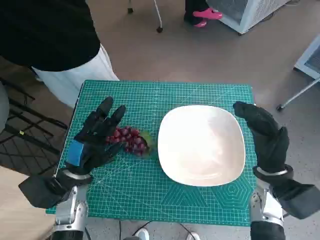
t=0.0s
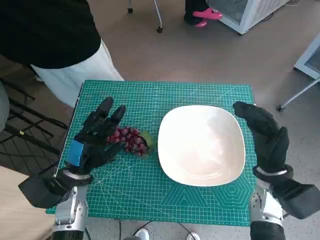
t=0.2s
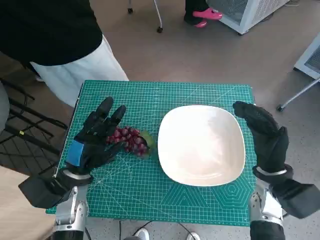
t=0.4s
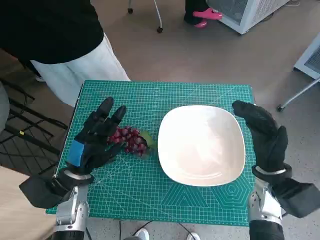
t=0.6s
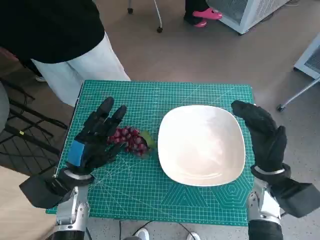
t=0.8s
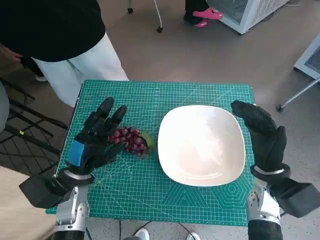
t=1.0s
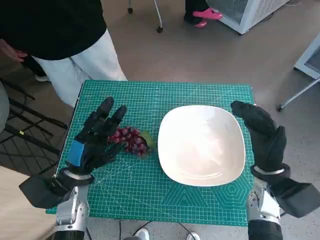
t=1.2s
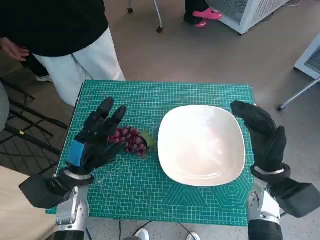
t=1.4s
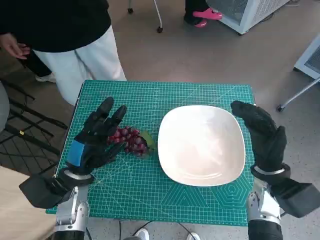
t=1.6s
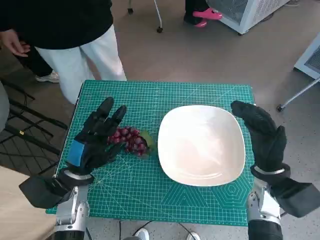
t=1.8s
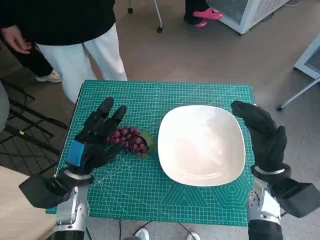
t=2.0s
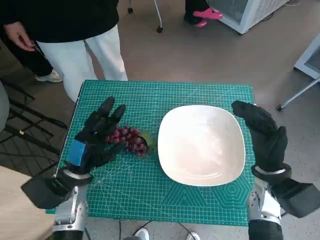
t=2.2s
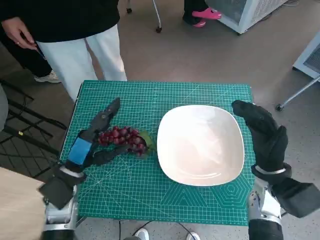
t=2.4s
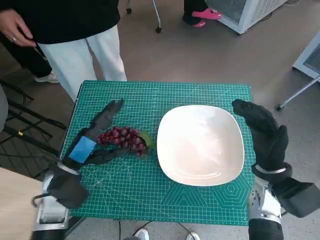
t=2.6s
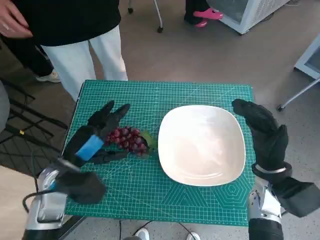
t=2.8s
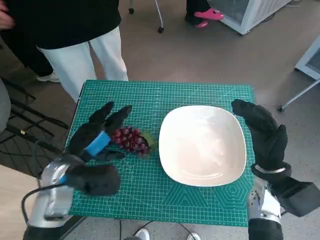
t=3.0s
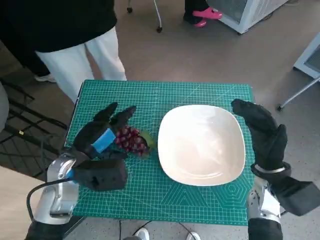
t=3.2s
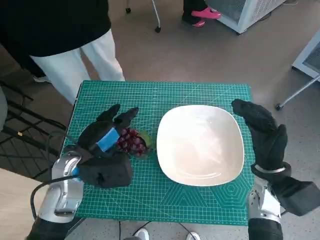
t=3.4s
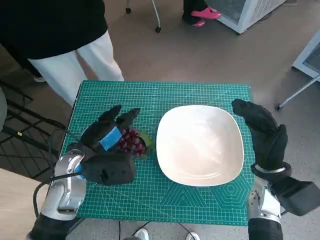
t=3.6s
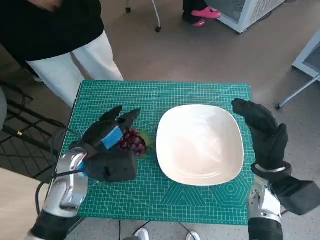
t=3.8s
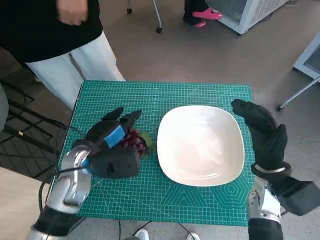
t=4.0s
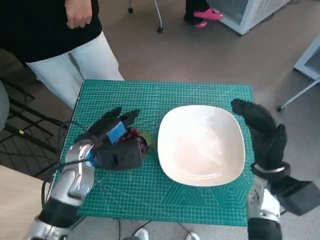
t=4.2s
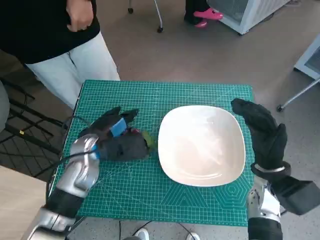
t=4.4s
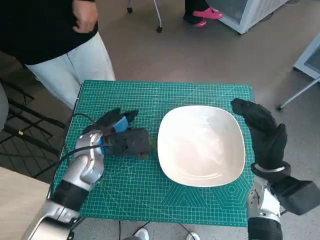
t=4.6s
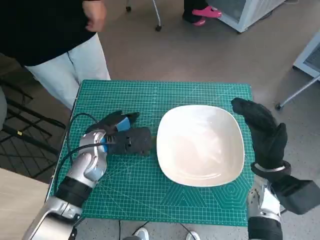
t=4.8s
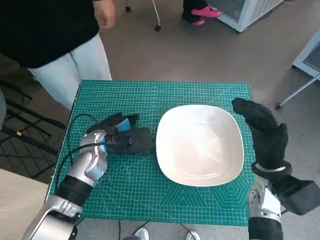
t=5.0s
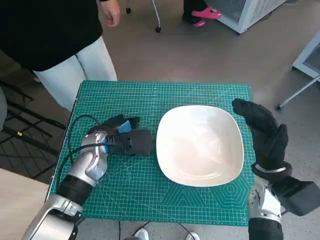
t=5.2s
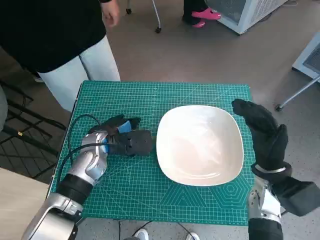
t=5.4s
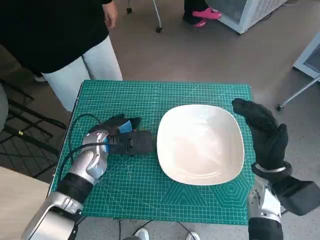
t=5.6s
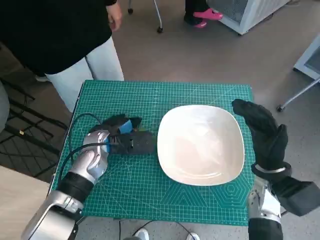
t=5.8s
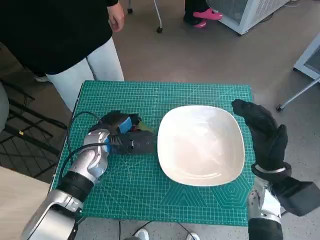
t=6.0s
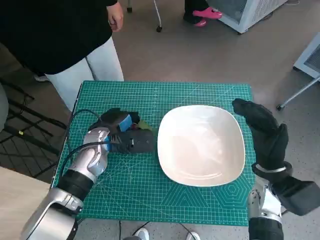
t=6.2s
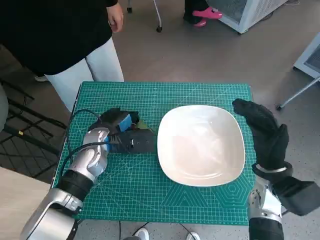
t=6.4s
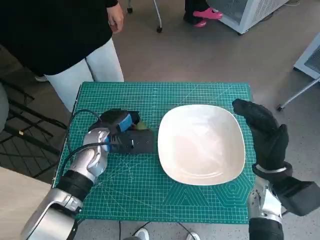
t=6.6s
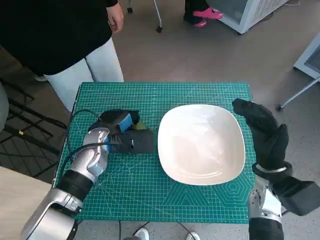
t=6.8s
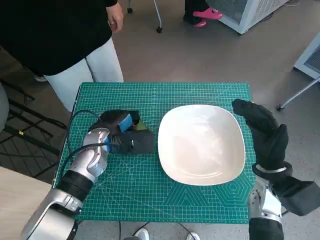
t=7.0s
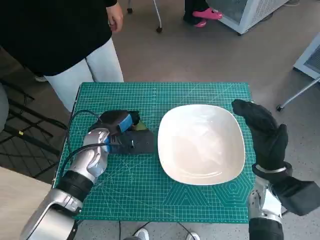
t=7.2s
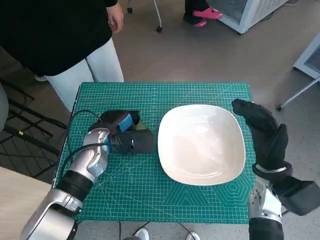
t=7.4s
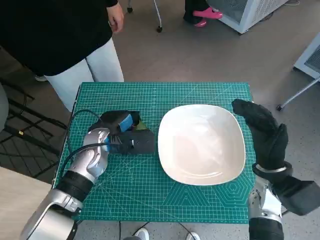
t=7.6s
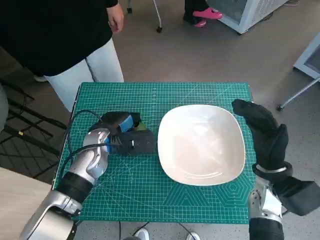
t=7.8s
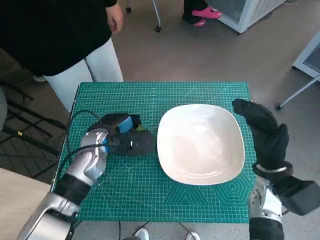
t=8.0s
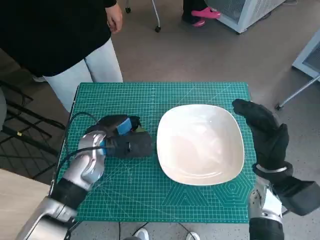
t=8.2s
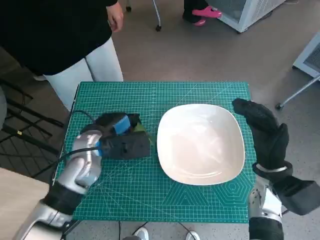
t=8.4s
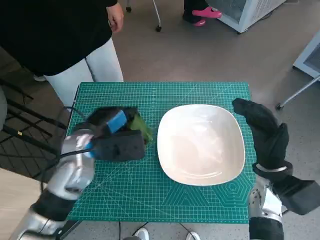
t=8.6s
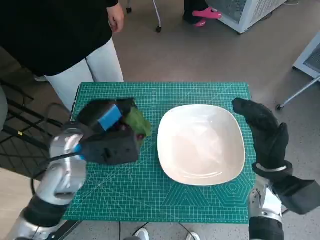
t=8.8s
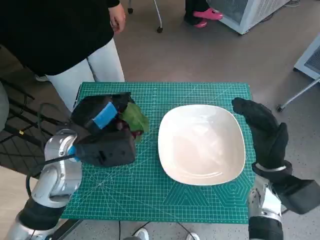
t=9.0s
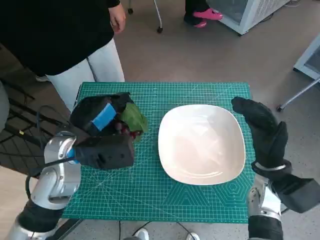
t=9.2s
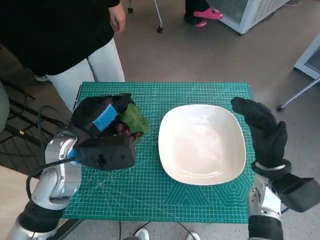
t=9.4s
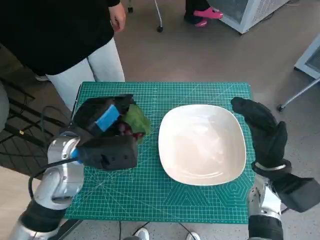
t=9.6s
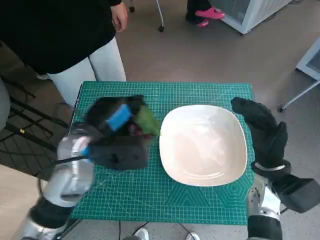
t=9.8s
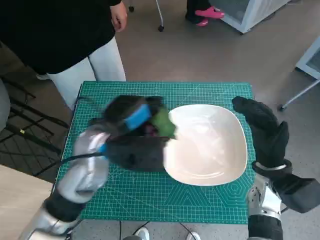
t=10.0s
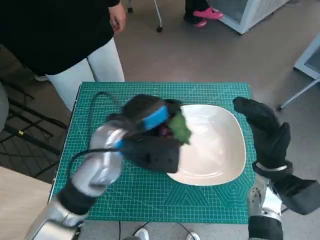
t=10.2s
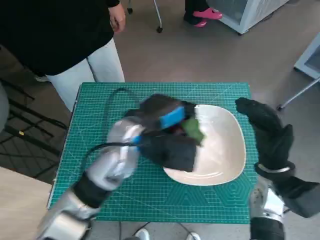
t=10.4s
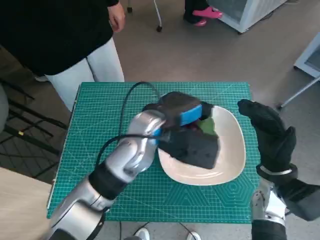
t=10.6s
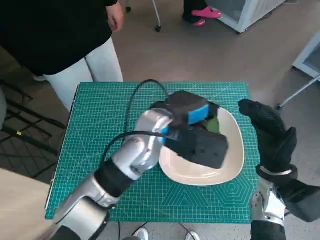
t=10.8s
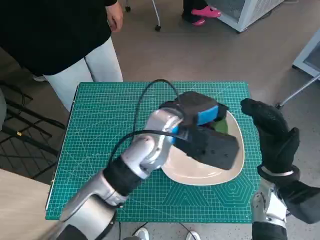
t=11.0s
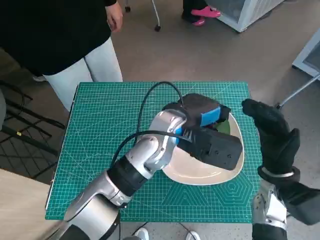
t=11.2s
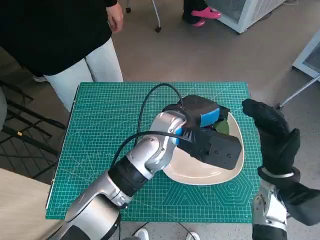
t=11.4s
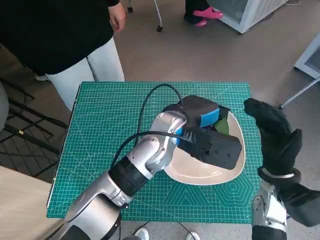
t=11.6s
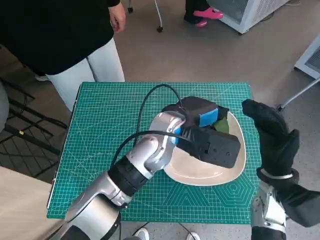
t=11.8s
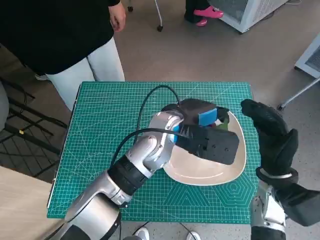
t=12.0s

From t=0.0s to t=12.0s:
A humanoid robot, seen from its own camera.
Task of the whole recording: Pick up the grapes and put them on the plate.
Step, from t=0.0s to t=6.6s: Grasp the grapes with left hand.
From t=1.6s to t=3.0s: The left hand heads upward, covering roughly 5 cm.
From t=3.0s to t=4.4s: The left hand heads forward, covering roughly 5 cm.
From t=4.4s to t=7.6s: The hands make only small movements.
From t=7.6s to t=9.0s: The left hand travels upward and backward by about 10 cm.
From t=9.0s to t=10.4s: The left hand goes some 10 cm to the right.
From t=10.4s to t=12.0s: The left hand heads to the right, covering roughly 5 cm.

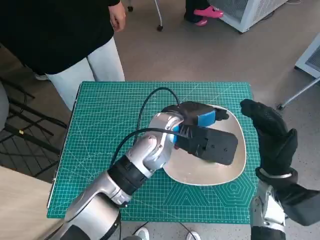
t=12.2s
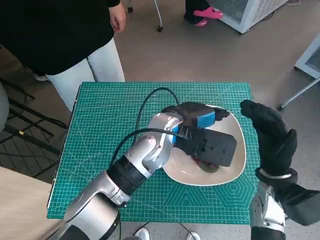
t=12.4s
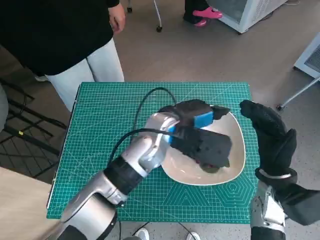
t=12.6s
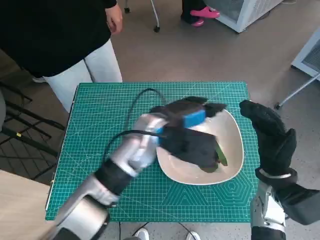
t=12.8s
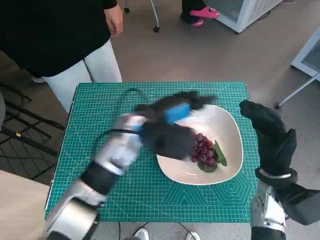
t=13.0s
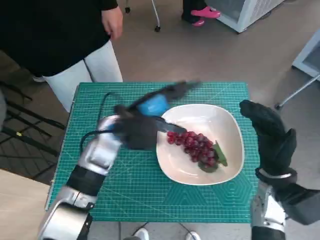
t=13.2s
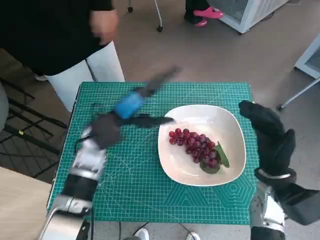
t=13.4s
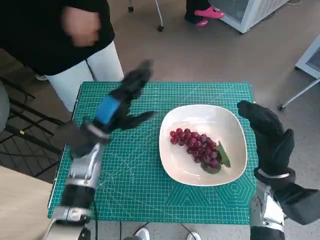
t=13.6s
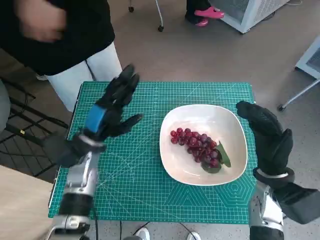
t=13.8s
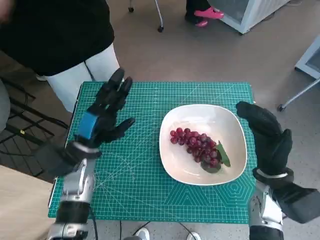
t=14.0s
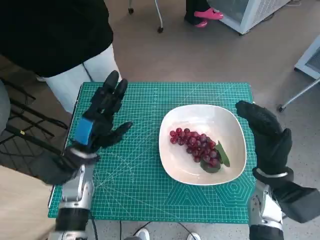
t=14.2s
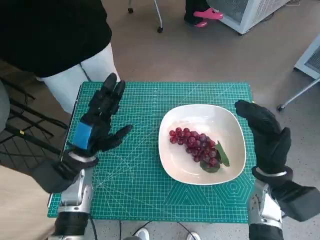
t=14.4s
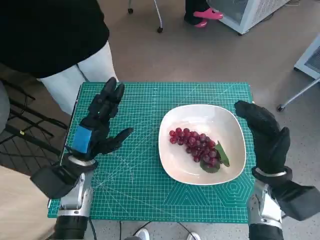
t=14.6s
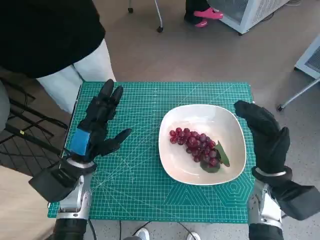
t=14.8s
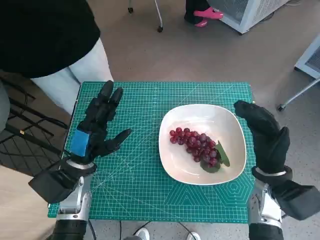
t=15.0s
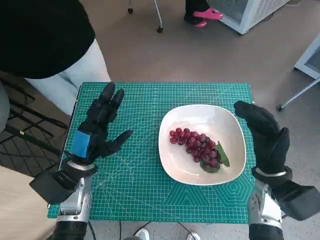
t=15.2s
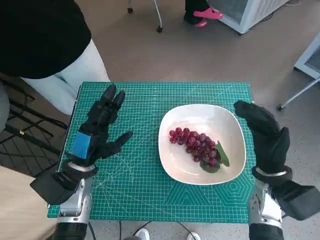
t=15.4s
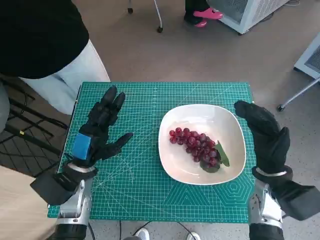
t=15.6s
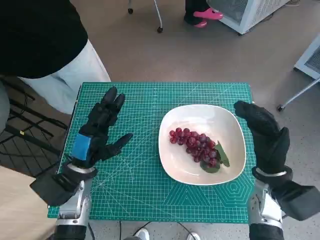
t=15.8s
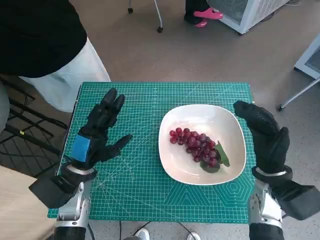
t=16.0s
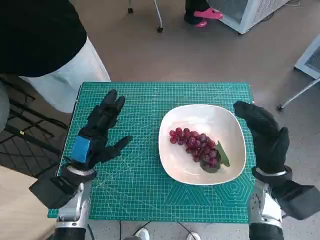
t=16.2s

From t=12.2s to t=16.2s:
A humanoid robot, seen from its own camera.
Task of the whole recording: Pick up the grapes and put them on the plate.
From t=12.2s to t=13.6s: The left hand is displaced to the left by about 15 cm.
From t=13.6s to t=14.8s: The left hand heads backward, covering some 5 cm.
From t=14.8s to t=16.2s: The hands move only a little.

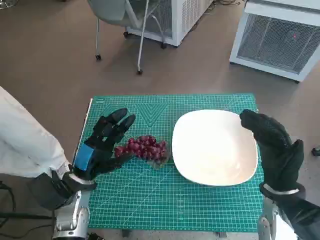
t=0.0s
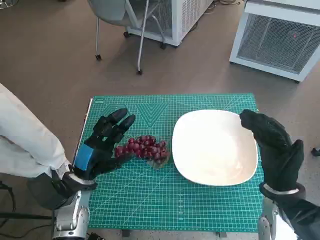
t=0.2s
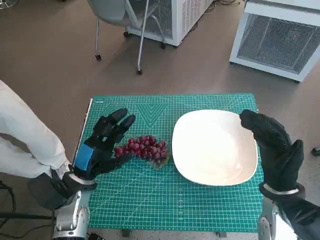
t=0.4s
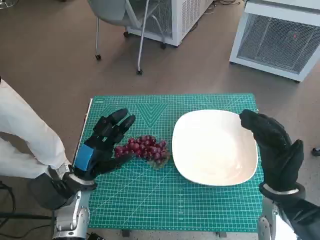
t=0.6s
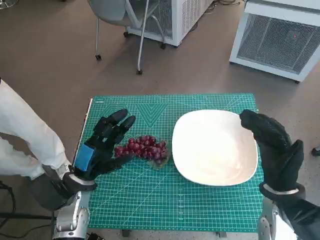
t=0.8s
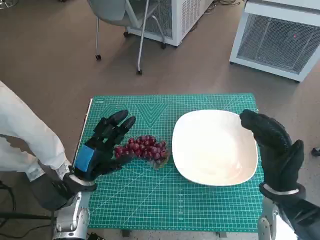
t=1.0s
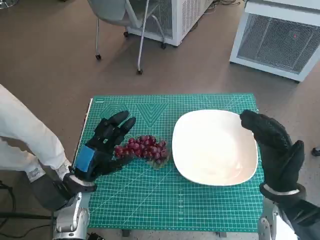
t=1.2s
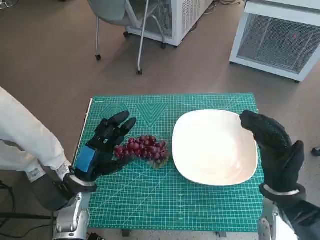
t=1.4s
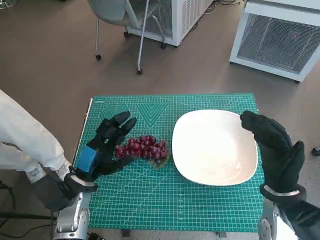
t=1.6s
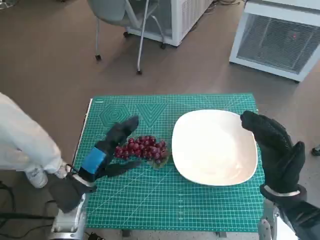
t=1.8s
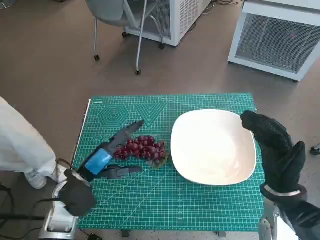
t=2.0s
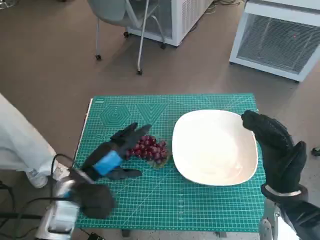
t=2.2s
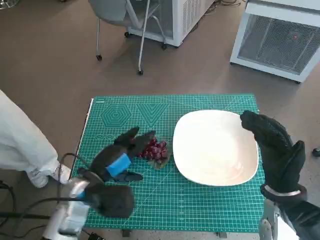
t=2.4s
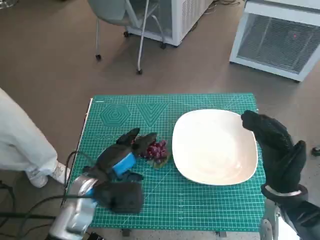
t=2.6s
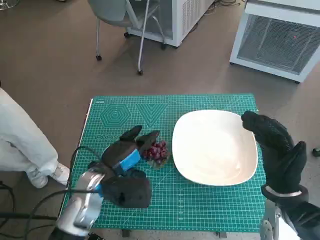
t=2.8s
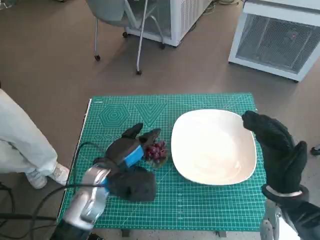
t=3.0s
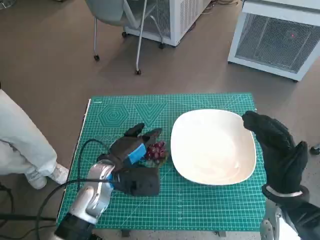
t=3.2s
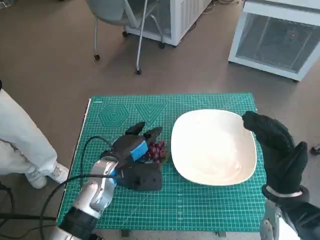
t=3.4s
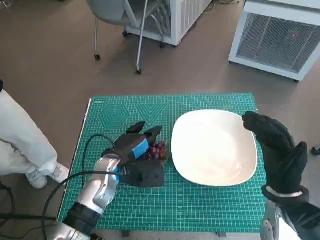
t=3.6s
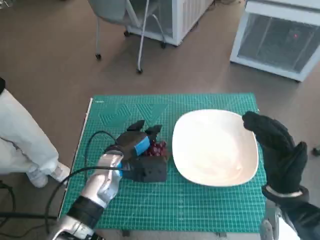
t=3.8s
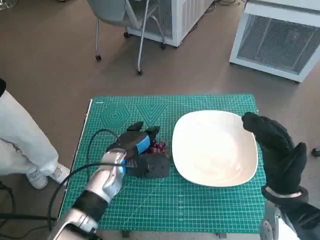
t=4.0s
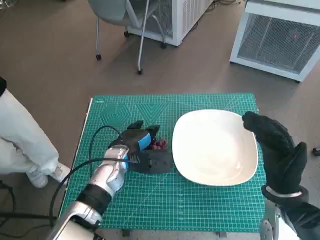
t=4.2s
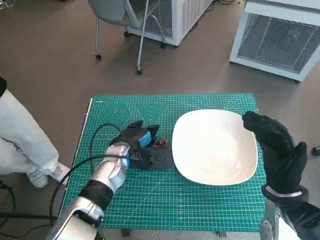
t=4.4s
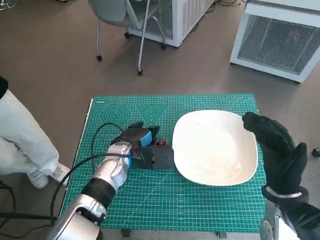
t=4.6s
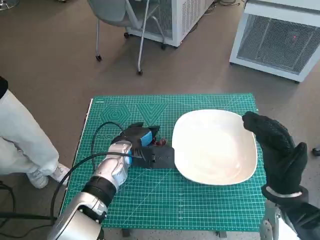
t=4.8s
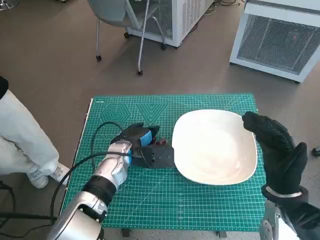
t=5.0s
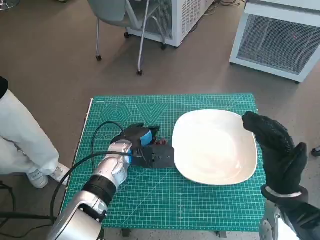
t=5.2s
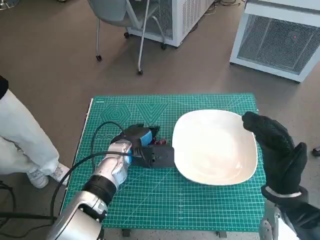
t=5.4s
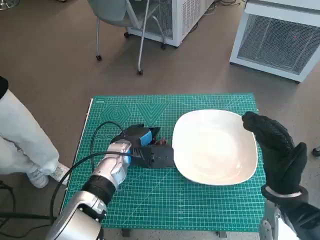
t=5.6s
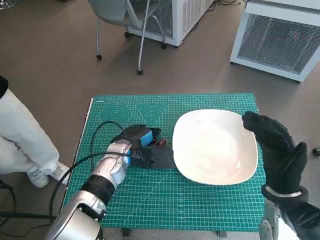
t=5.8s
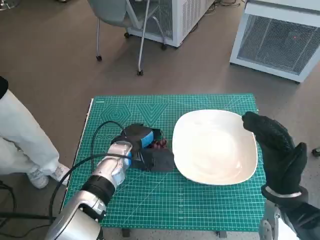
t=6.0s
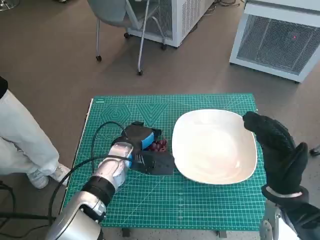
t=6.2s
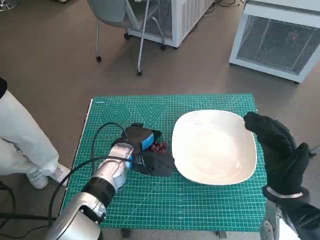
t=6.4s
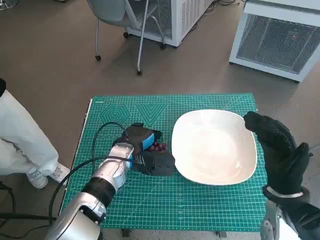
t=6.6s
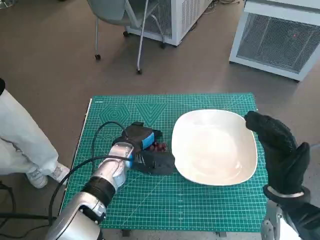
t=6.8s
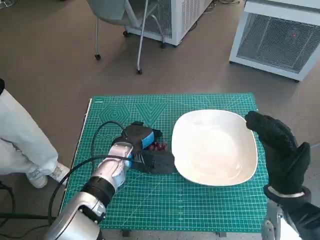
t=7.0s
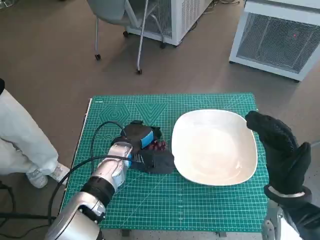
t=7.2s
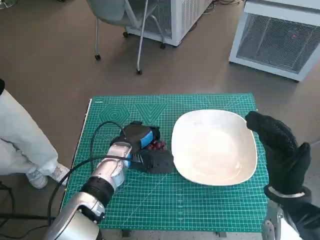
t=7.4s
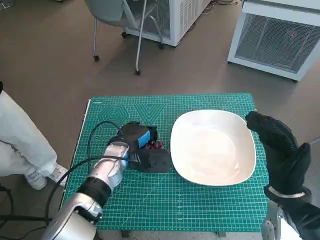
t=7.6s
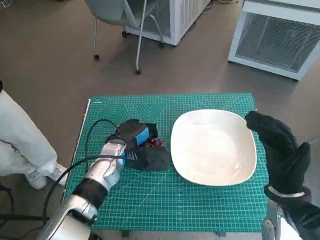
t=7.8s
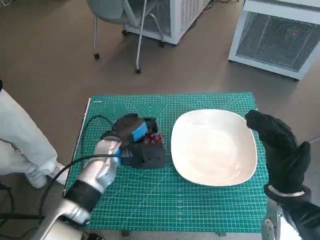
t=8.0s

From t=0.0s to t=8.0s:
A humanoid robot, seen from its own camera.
Task of the whole recording: Pick up the grapes and put them on the plate.
Step, from t=0.0s to t=6.0s: Grasp the grapes with left hand.
From t=1.6s to t=3.2s: The left hand shifts about 5 cm to the right.
From t=3.2s to t=4.8s: The left hand moves forward, approximately 5 cm.
From t=4.8s to t=8.0s: The hands stay close to where they were, moving slightly.
